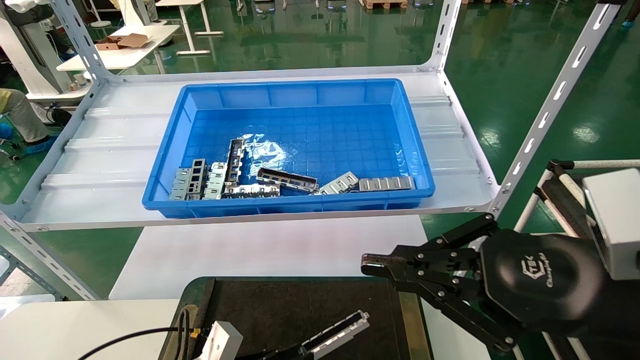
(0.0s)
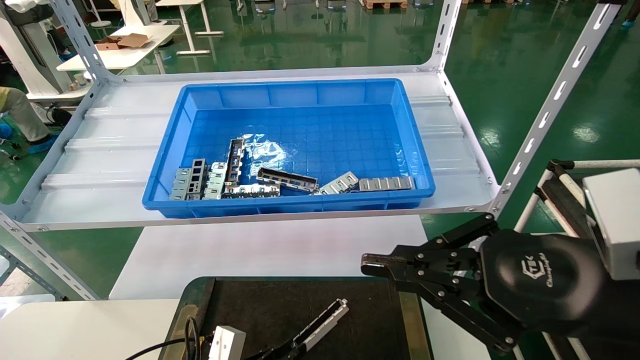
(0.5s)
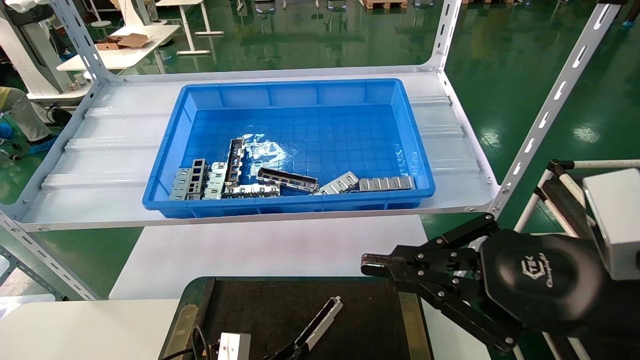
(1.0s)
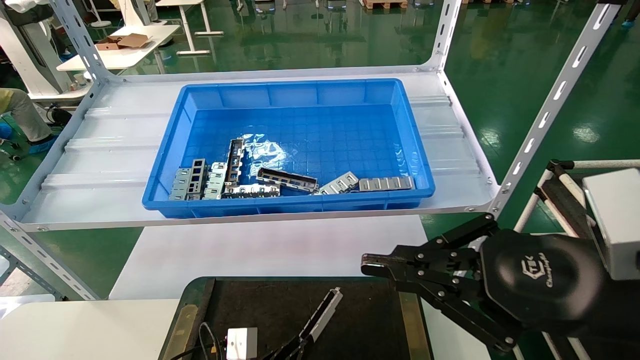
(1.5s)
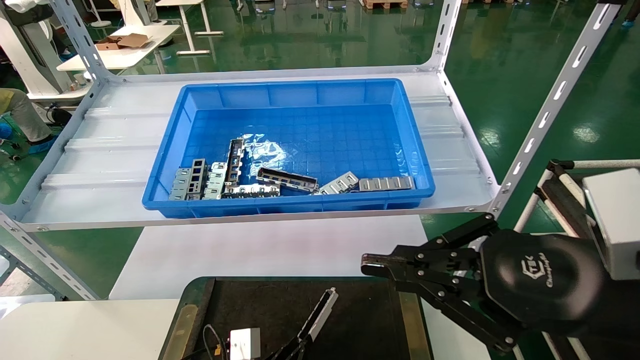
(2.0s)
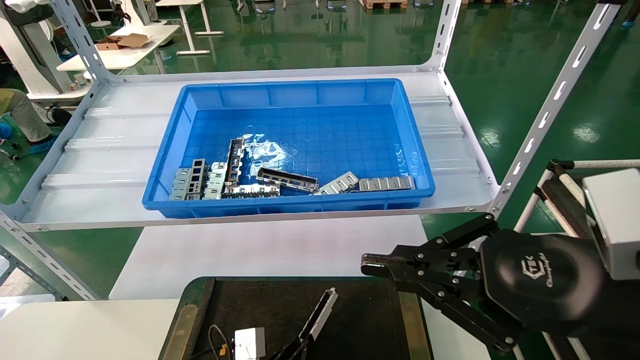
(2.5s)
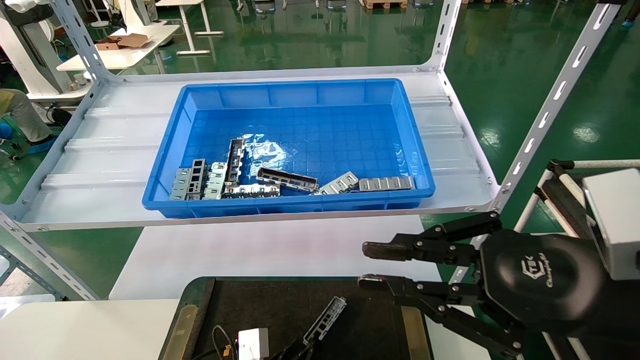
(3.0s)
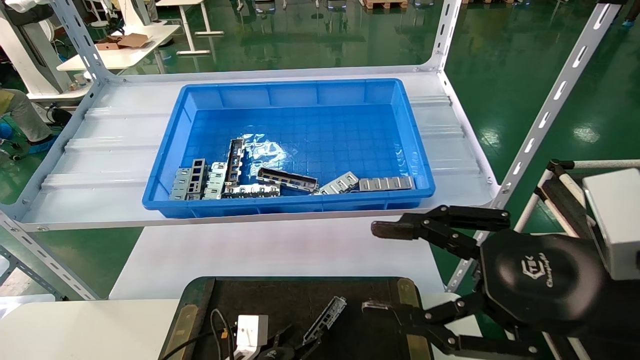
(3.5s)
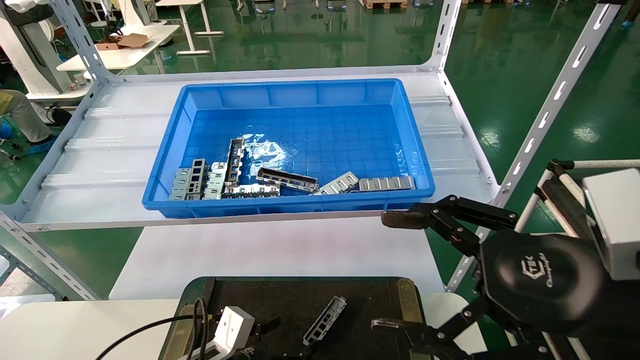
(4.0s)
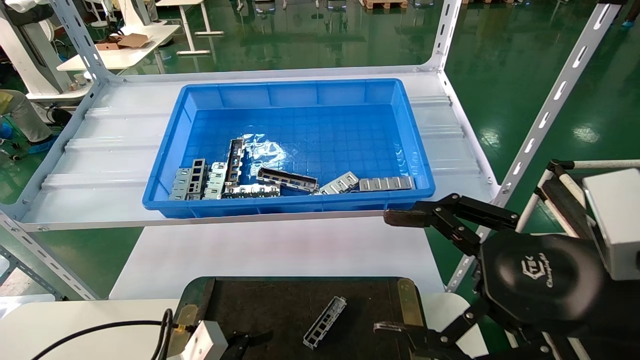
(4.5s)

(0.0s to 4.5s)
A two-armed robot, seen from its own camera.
Task of the whole recording: Grasp the part with one hand and place it on the black container.
Step, 0.0s - 2.5s: Place the front USB bracket into the box.
0.0s - 2.0s: The left gripper goes about 10 cm to the right and downward.
2.0s - 4.5s: The left gripper moves to the left and upward, approximately 15 cm, and opens. Meanwhile the right gripper opens up.
